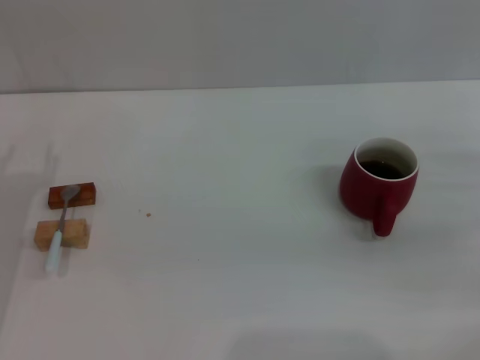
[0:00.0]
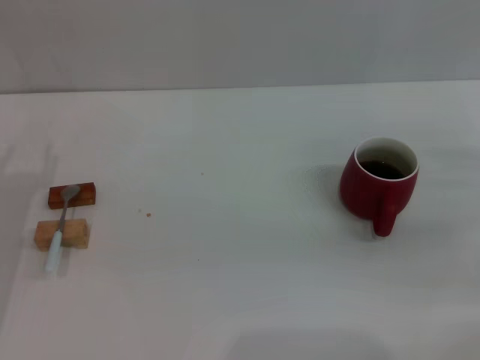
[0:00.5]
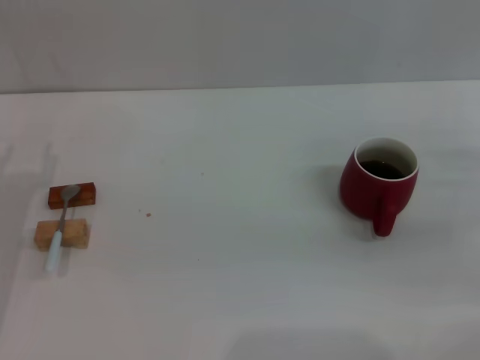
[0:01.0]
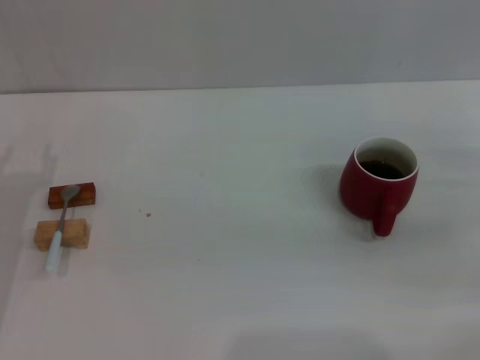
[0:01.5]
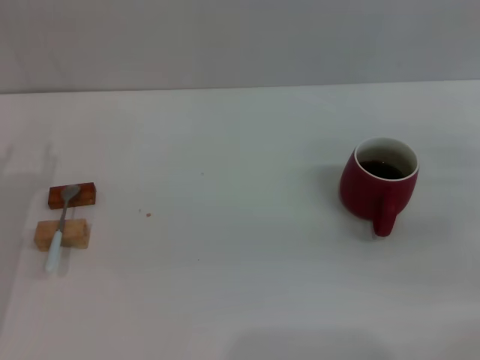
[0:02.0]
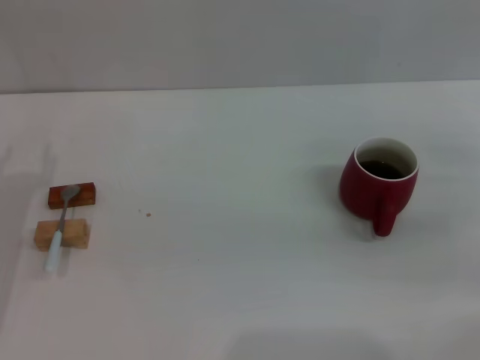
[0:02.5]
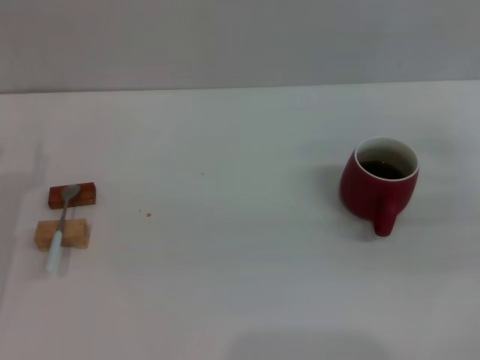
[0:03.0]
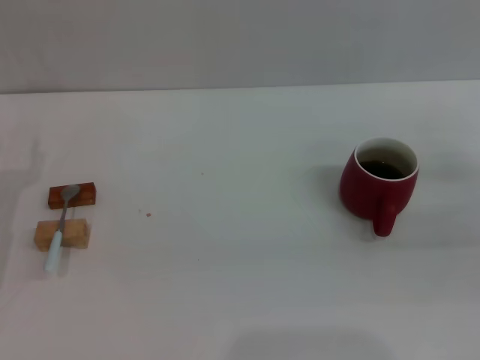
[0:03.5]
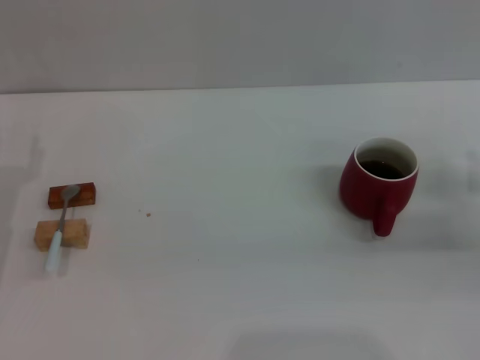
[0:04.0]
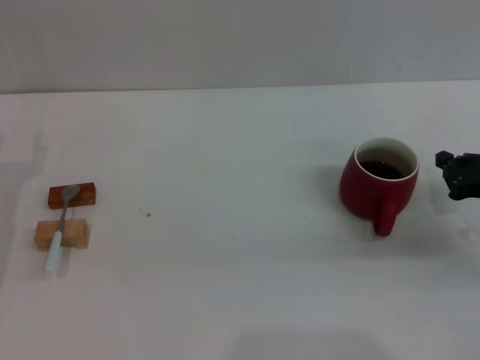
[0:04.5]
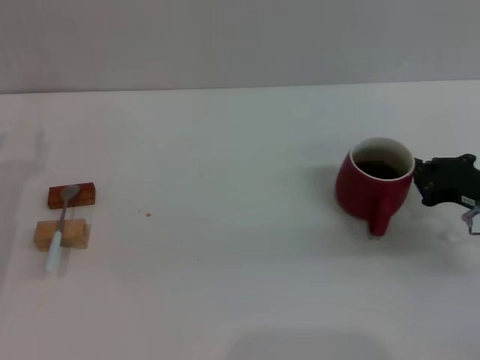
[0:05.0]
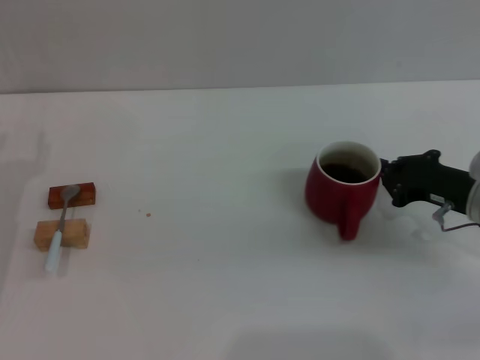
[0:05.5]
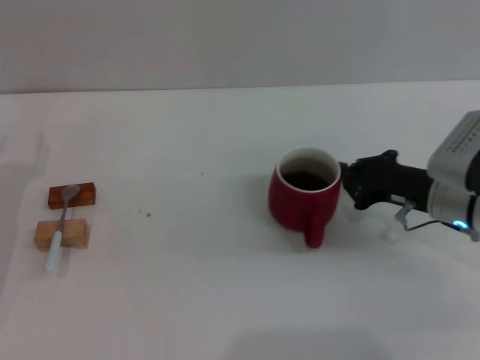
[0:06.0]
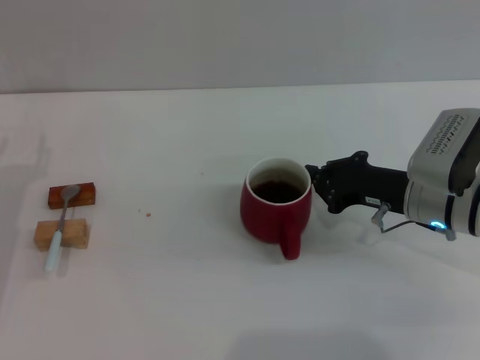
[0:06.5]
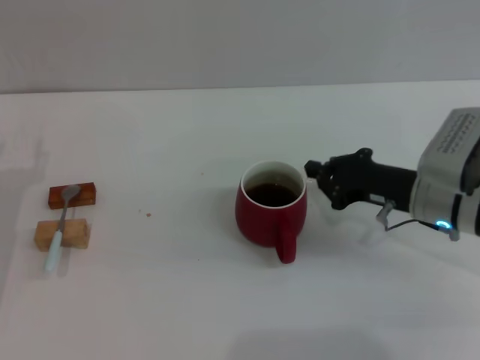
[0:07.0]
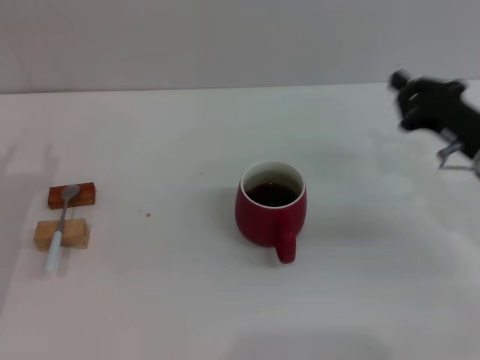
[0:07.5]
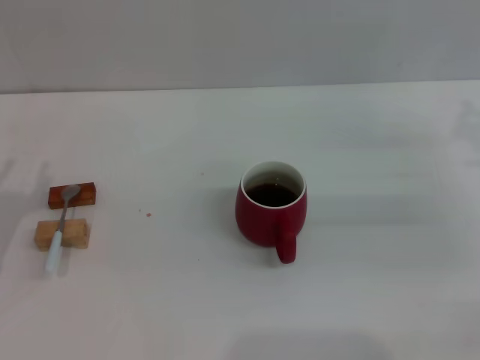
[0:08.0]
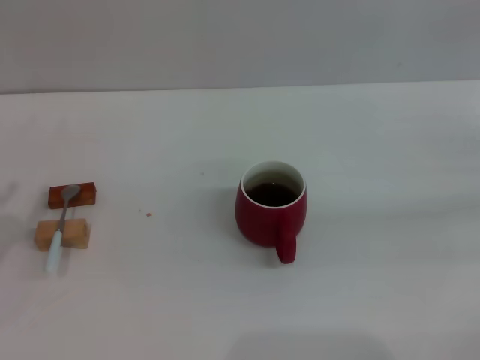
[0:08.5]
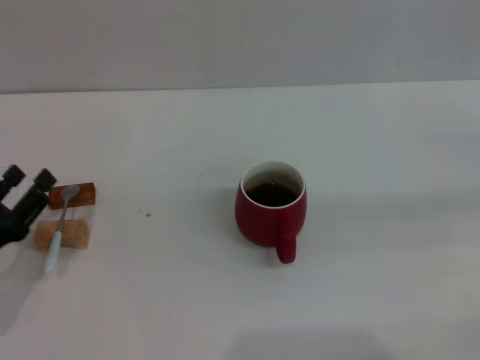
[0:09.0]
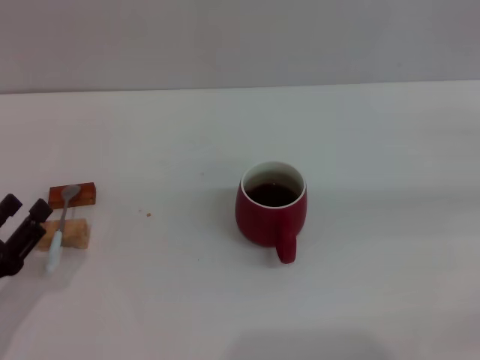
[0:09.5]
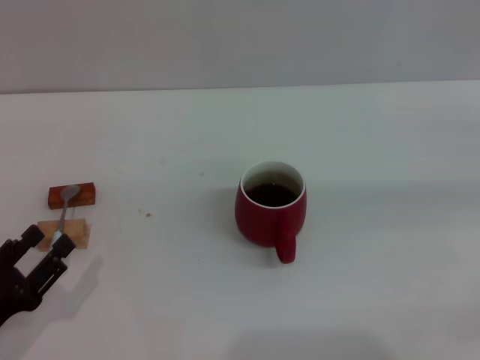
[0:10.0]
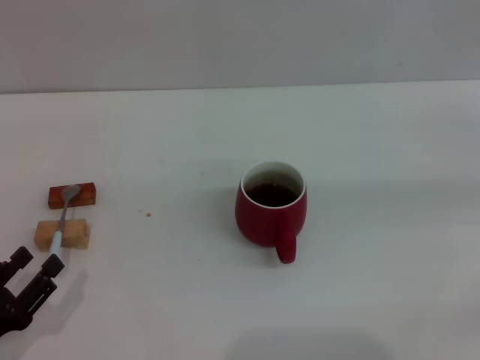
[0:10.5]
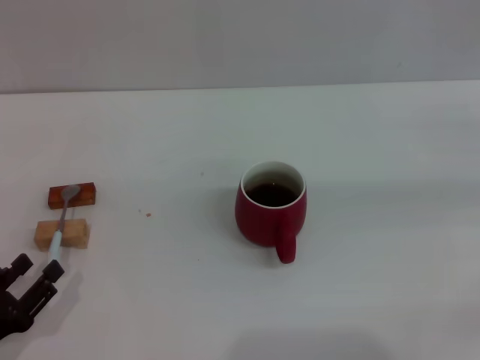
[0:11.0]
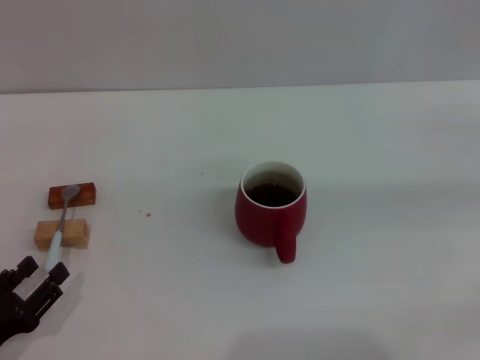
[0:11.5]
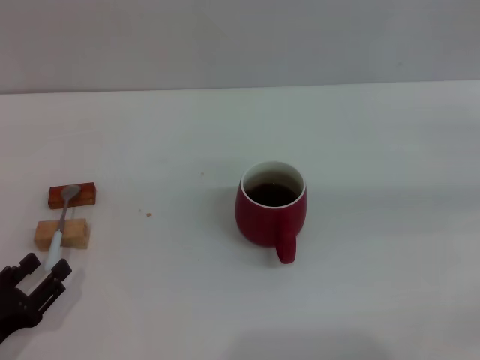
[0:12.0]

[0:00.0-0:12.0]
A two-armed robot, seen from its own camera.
Task of the whole recording: Move the red cup to the center, lift the blue spoon, stir it three times in the cup, and put the spoon into the cup.
Step, 0:00.0 to 0:07.0: Move the cup with coffee to the center of view with the right gripper.
0:04.0 to 0:06.0: The right gripper moves to the left, approximately 15 cm.
0:06.0 to 0:08.0: The right gripper goes some 10 cm to the right.
0:08.0 to 0:10.0: The left gripper goes some 10 cm backward and downward.
0:10.0 to 0:12.0: The grippers make only small movements.

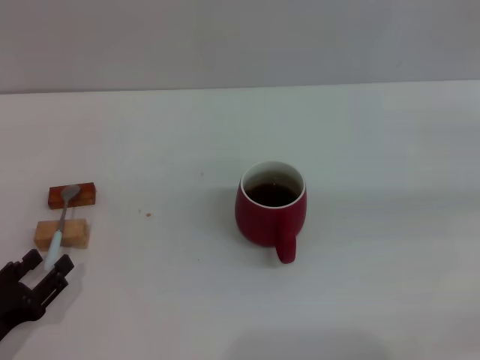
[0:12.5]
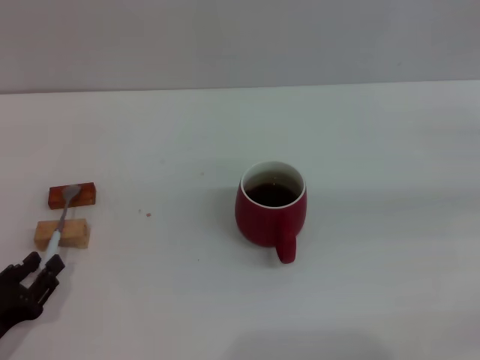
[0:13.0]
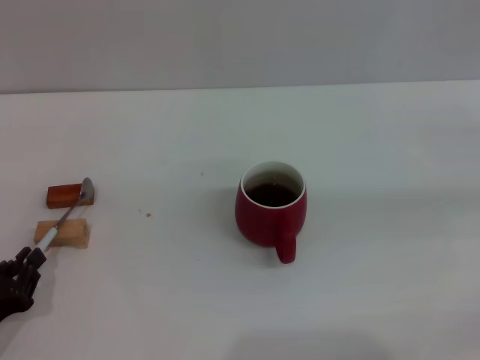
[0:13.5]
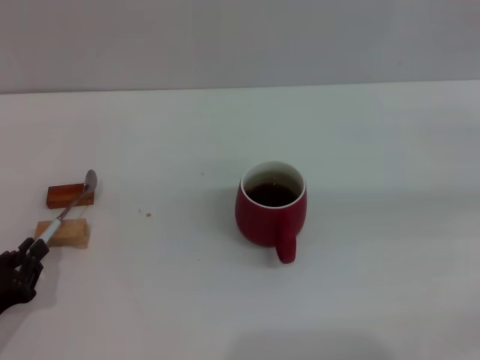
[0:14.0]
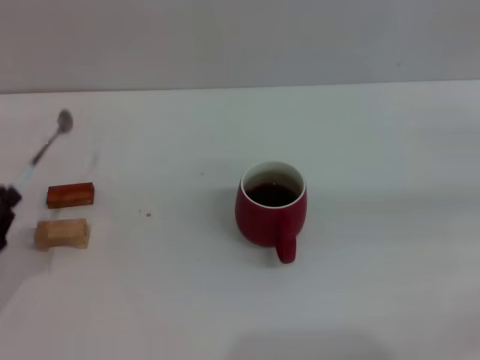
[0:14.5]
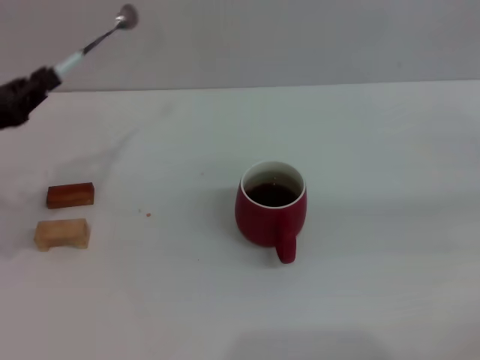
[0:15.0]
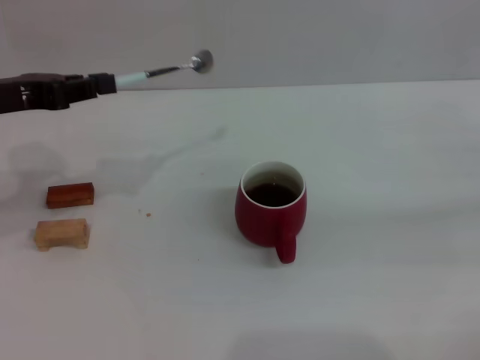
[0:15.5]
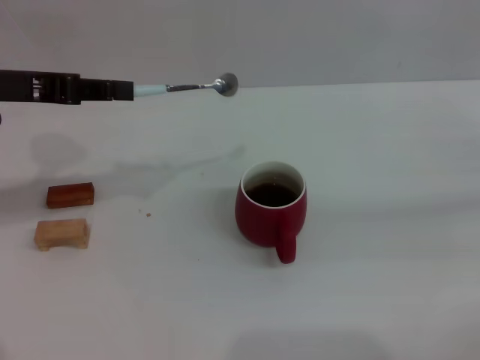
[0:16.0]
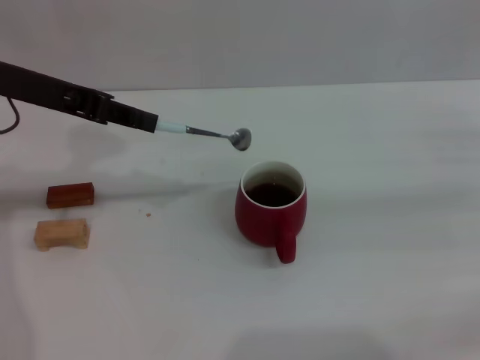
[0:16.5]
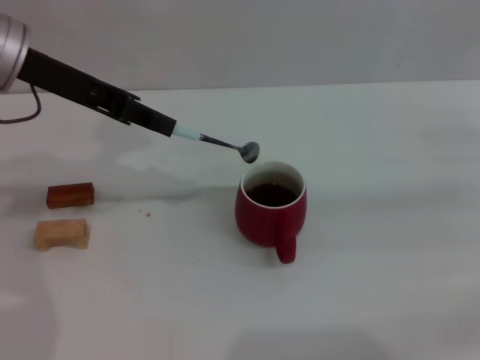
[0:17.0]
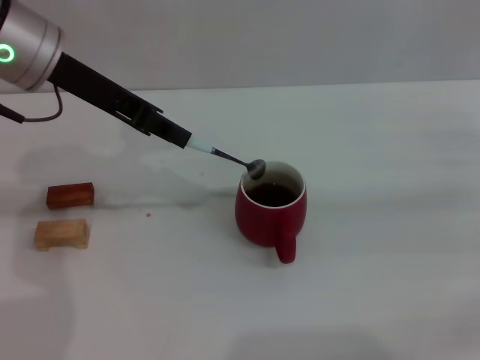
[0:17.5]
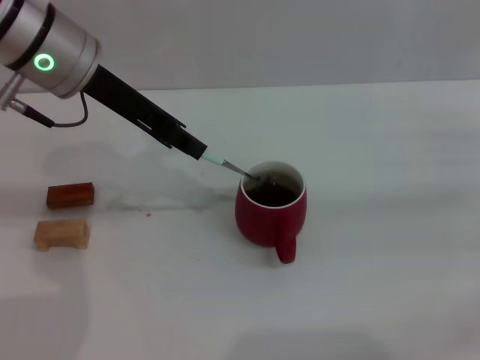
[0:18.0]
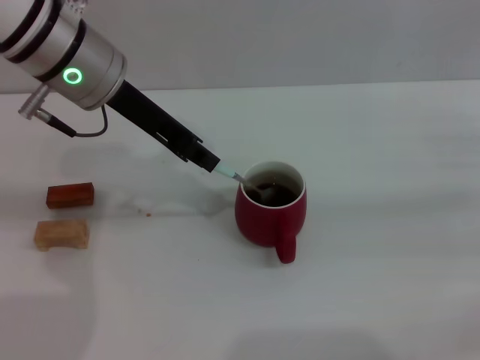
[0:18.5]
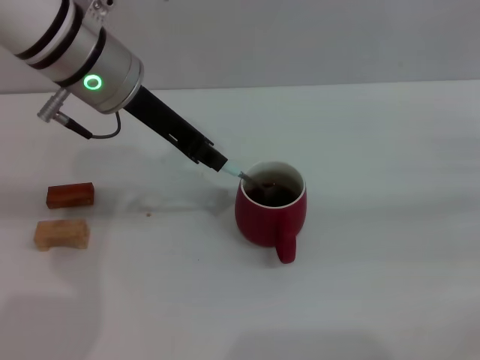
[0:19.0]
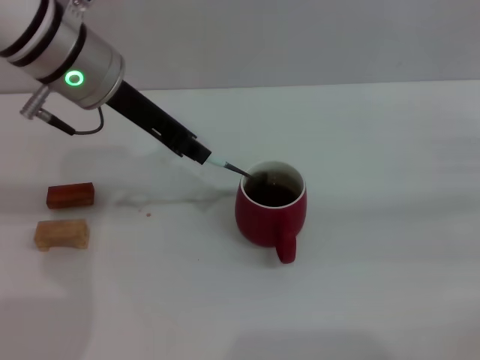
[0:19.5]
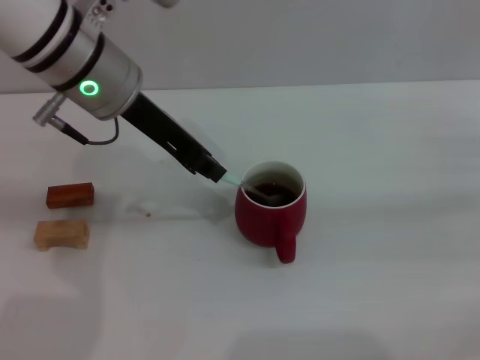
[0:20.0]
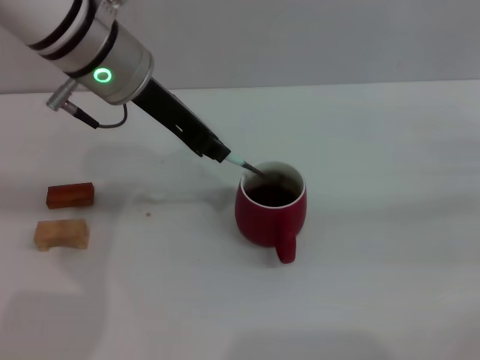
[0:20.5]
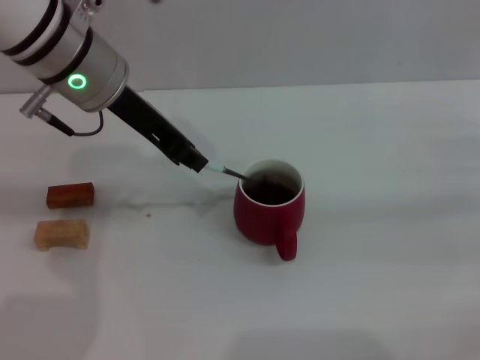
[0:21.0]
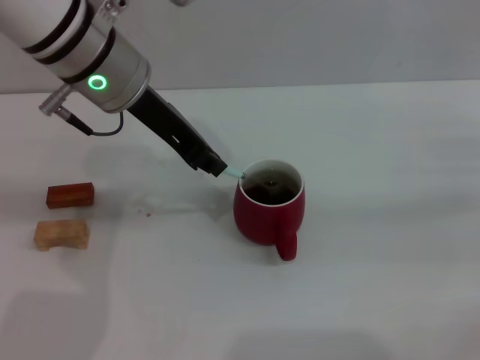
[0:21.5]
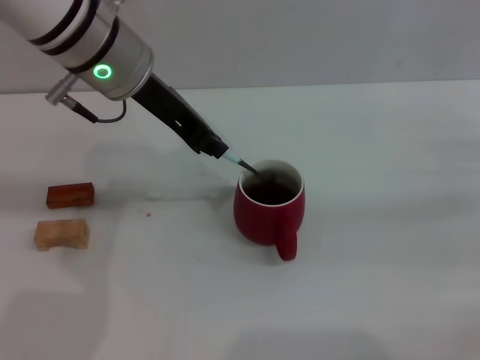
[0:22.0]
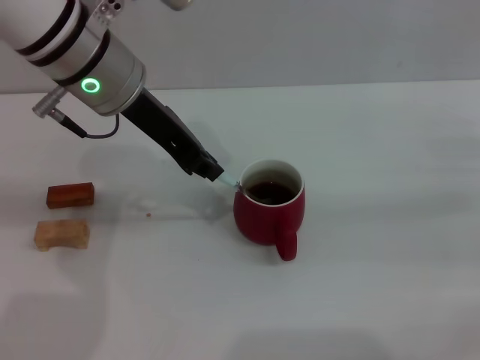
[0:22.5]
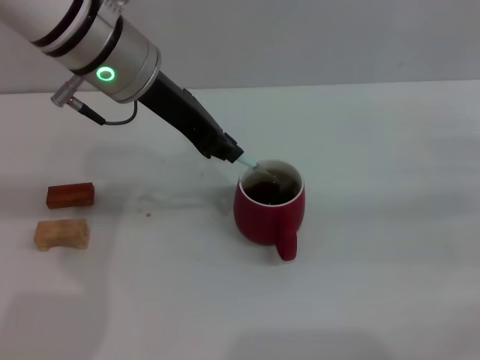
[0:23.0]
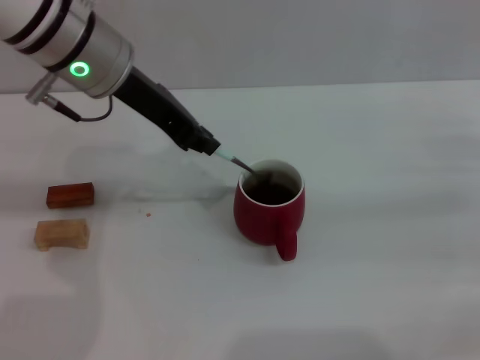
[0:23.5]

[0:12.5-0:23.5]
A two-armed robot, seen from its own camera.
Task of the whole recording: Move the red cup to the center, lift the blue spoon, stir it three times in the cup, and put the spoon into the cup.
Step, 0:12.5 to 0:14.5: Pick up the spoon with the left gripper.
0:12.5 to 0:14.5: The left gripper changes place by about 5 cm, and closes its fingers.
0:14.5 to 0:16.0: The left gripper shifts roughly 25 cm upward and forward.
0:16.0 to 0:18.0: The left gripper moves to the right, about 10 cm.
0:18.0 to 0:23.5: There are only small adjustments of the grippers.

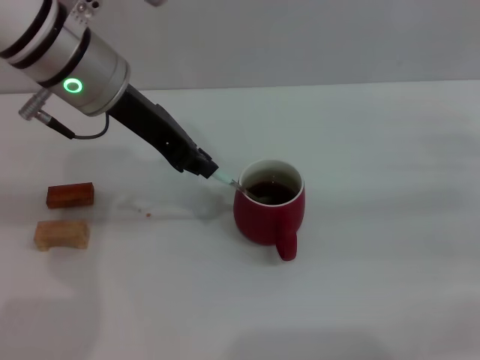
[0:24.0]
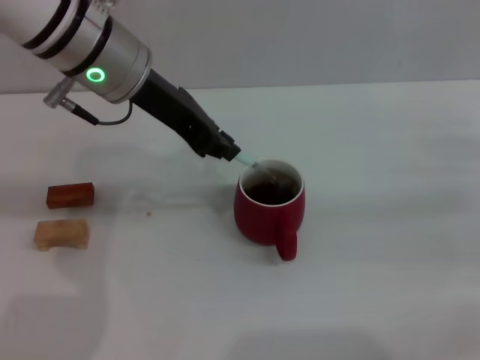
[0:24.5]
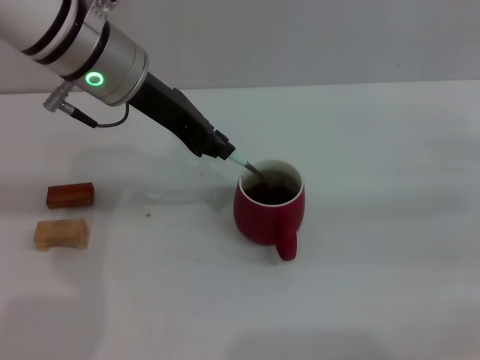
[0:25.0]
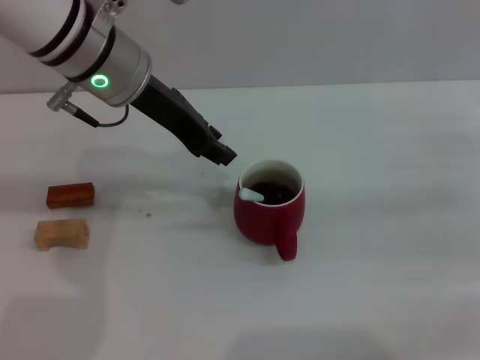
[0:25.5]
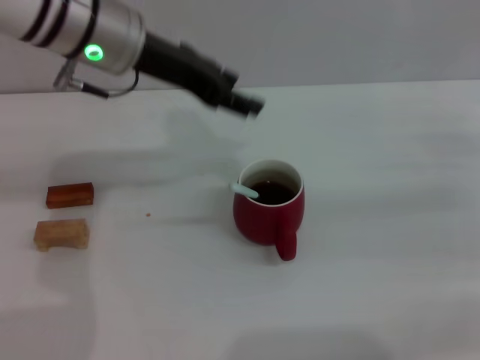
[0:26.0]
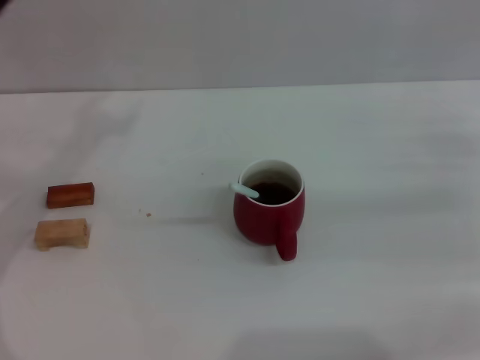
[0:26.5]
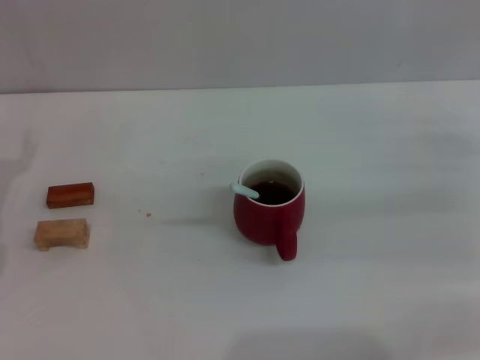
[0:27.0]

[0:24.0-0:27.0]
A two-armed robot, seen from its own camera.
Task of the whole recording: Move the red cup to the center, lift the blue spoon, stir it three times in the cup, and put the spoon into the cup.
0:24.0 to 0:25.5: The grippers stay close to where they were, moving slightly.
0:25.5 to 0:27.0: The left gripper moves to the left, downward and backward, roughly 25 cm, and opens up.
